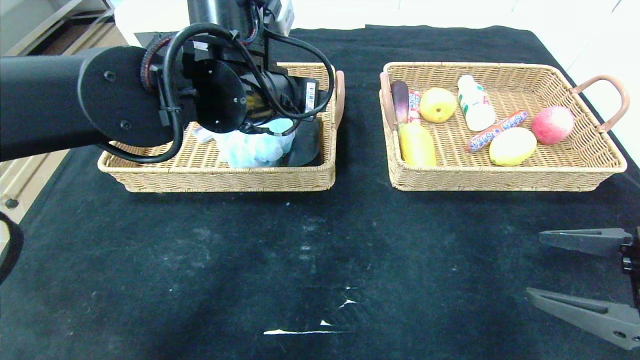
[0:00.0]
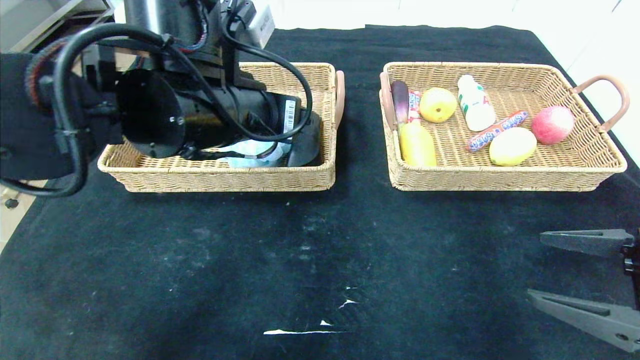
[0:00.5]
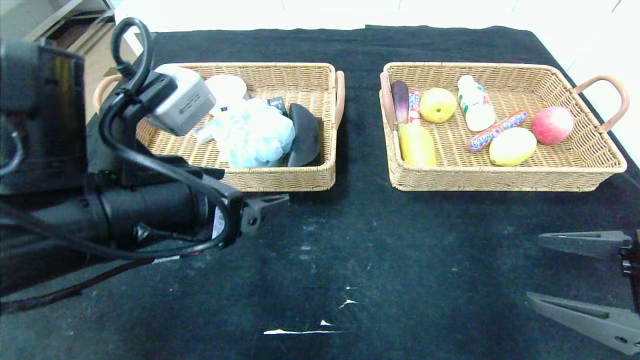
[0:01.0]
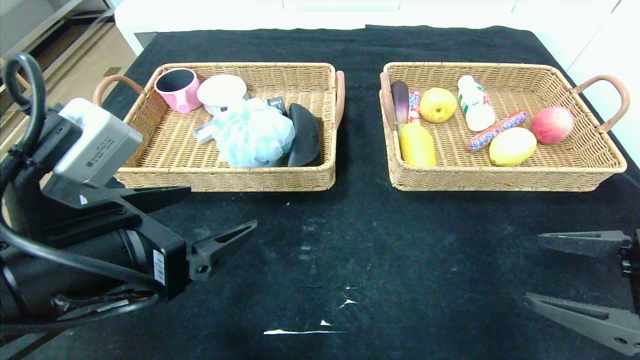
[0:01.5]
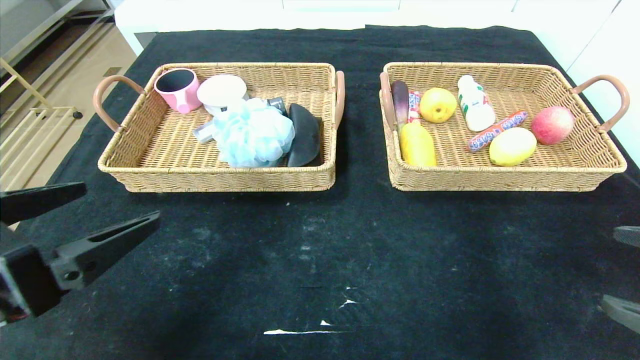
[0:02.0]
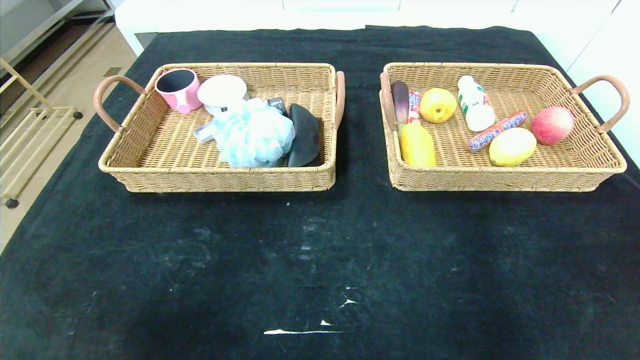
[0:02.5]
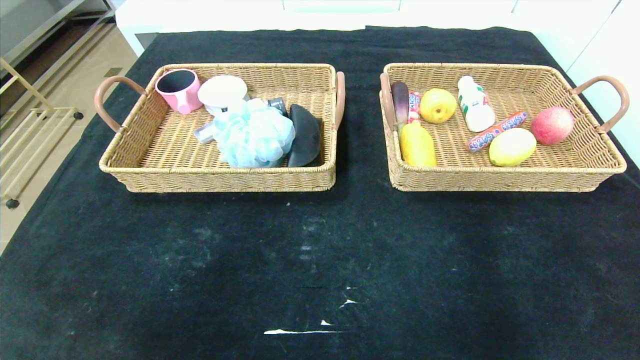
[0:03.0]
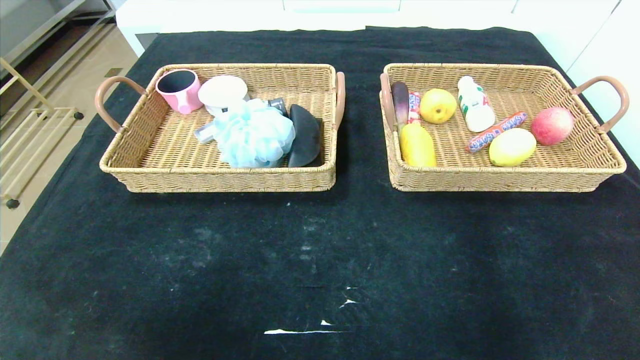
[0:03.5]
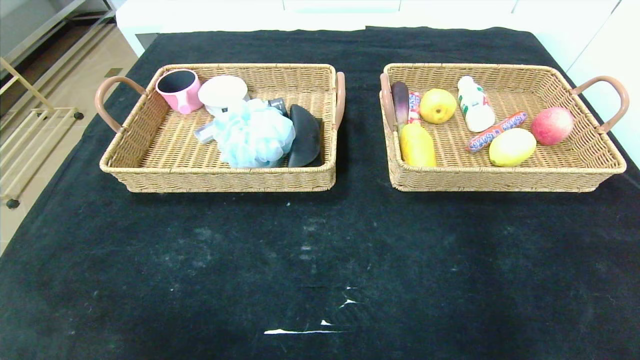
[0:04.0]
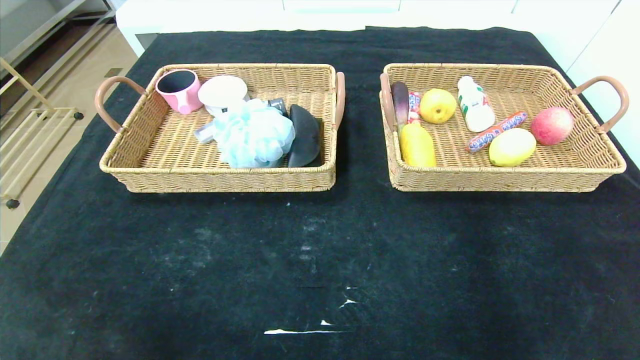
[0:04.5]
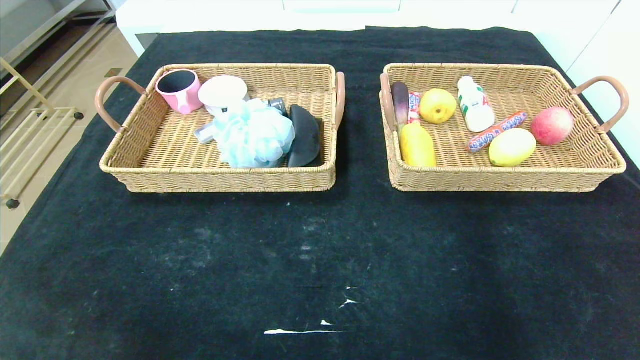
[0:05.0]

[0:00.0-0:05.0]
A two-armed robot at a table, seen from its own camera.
0:00.0 to 0:02.5: The left gripper is displaced backward and to the left by about 35 cm, while the right gripper heads backward, covering about 15 cm.
0:02.5 to 0:05.0: Both grippers travel together downward, about 20 cm.

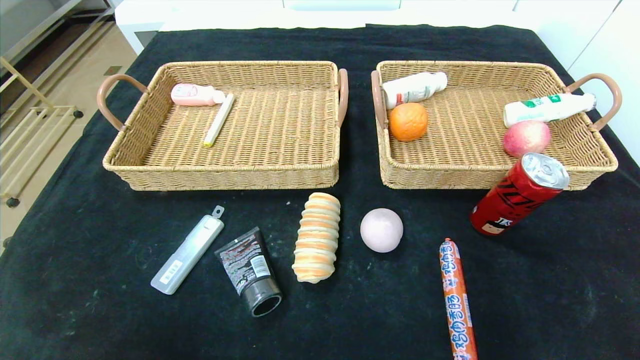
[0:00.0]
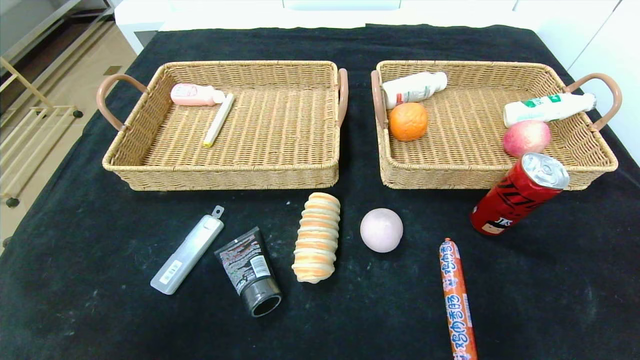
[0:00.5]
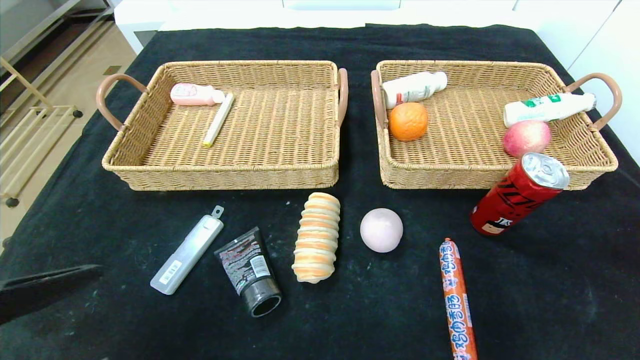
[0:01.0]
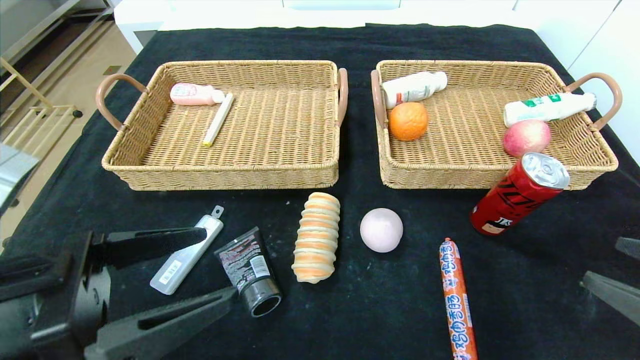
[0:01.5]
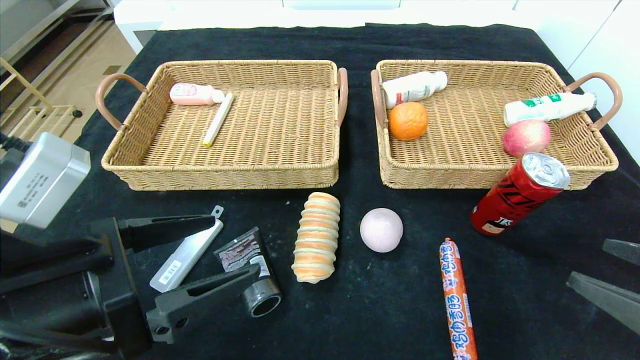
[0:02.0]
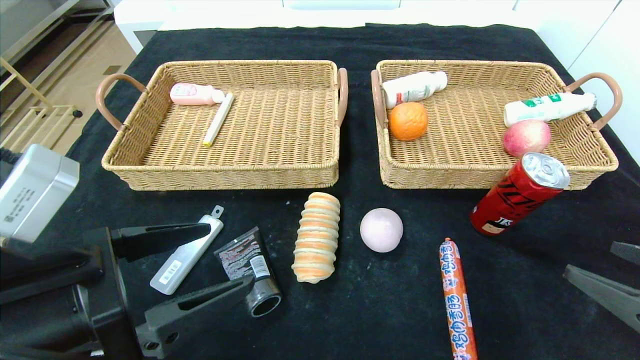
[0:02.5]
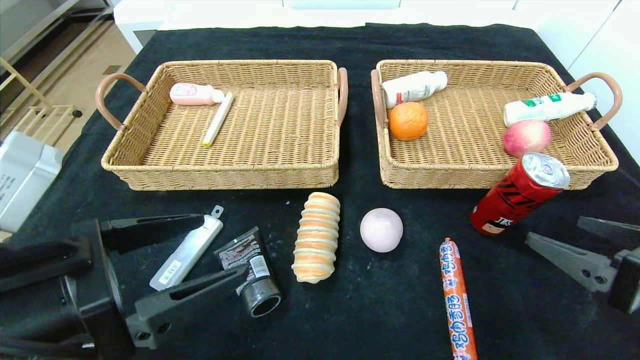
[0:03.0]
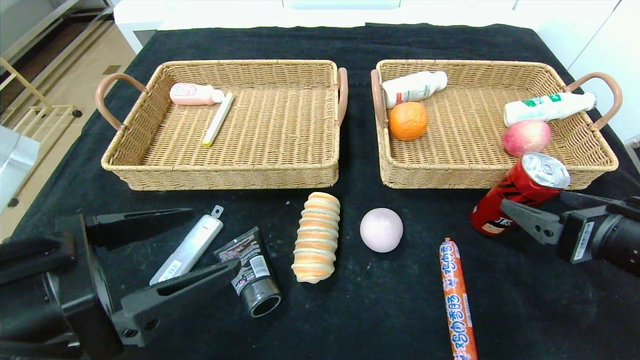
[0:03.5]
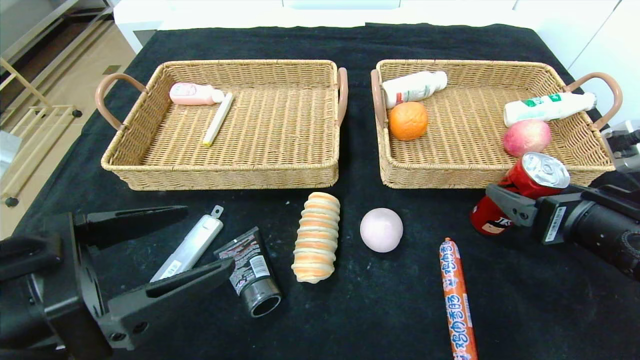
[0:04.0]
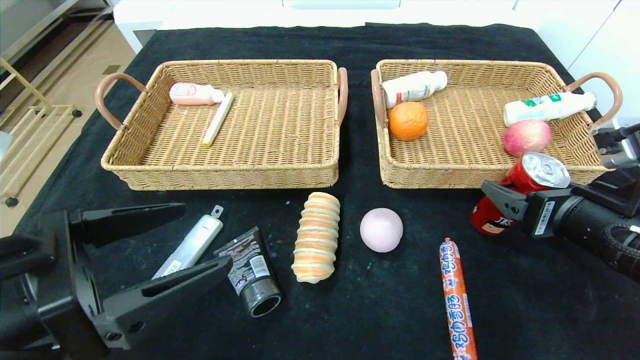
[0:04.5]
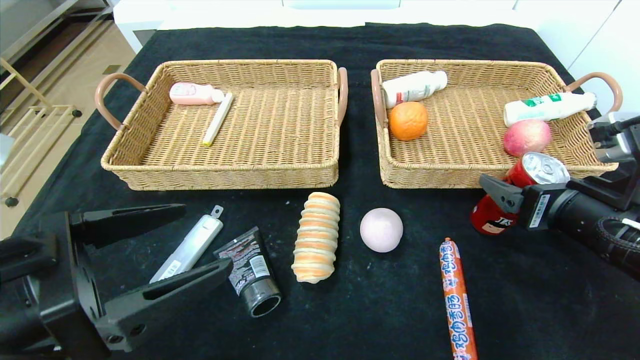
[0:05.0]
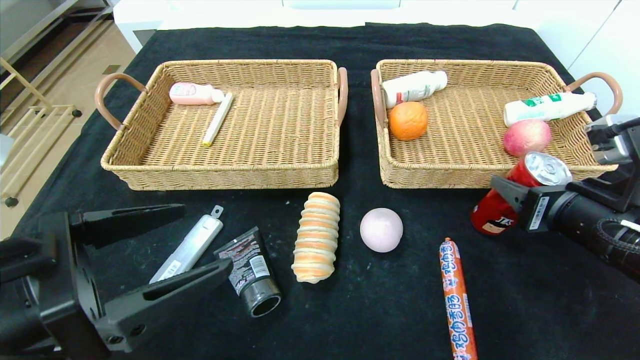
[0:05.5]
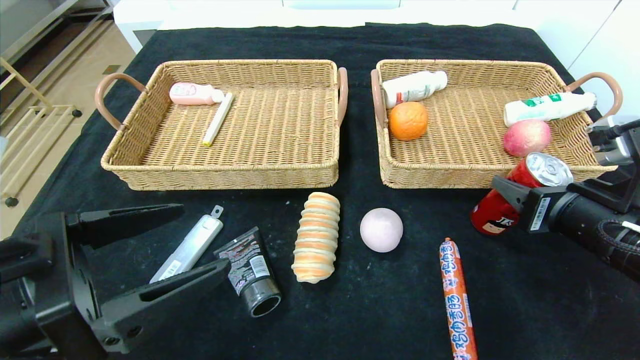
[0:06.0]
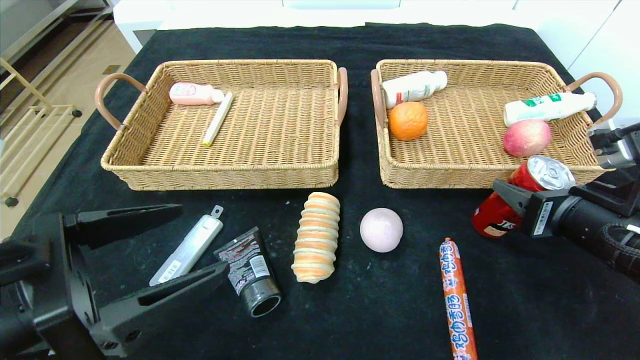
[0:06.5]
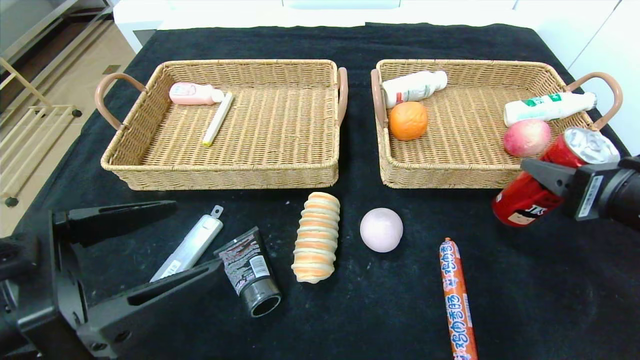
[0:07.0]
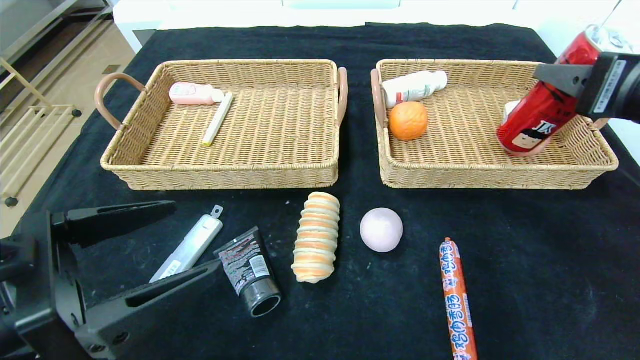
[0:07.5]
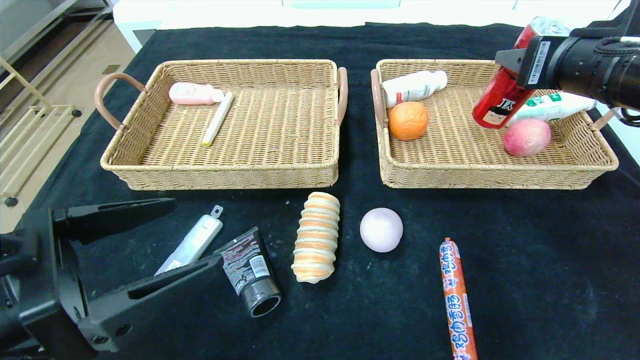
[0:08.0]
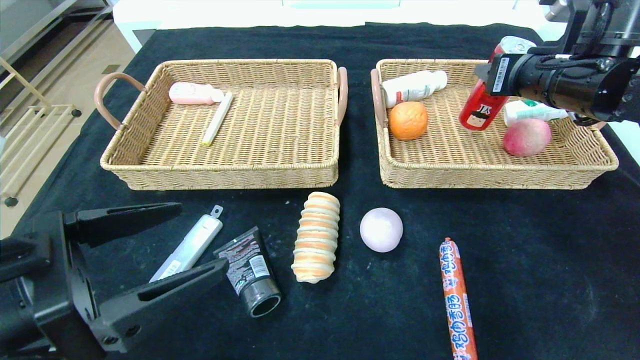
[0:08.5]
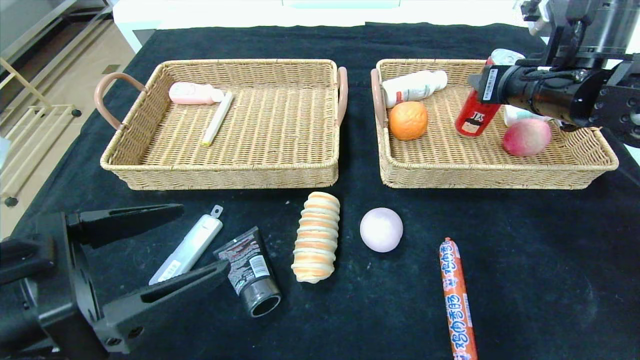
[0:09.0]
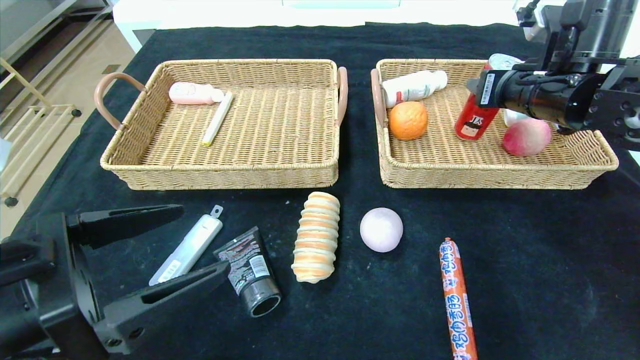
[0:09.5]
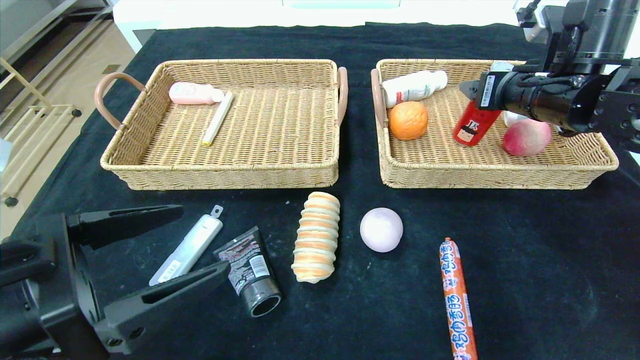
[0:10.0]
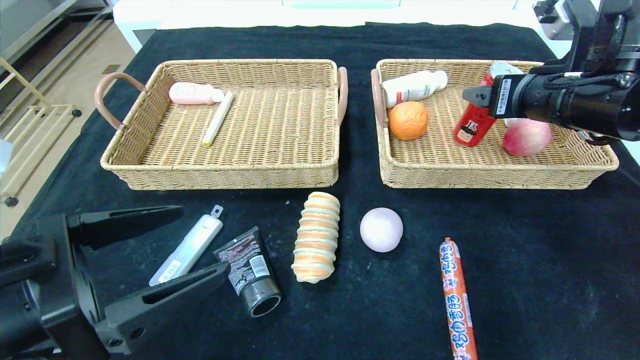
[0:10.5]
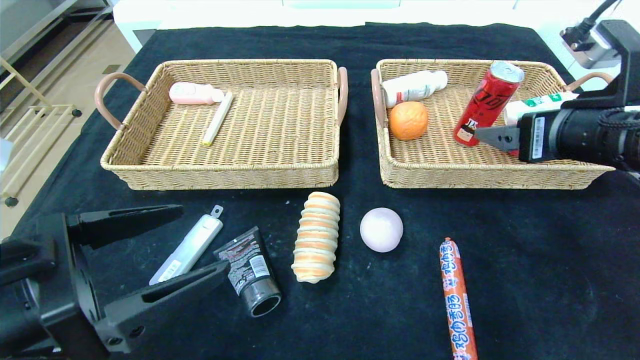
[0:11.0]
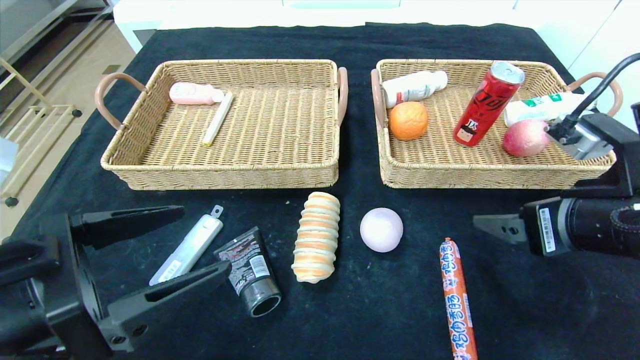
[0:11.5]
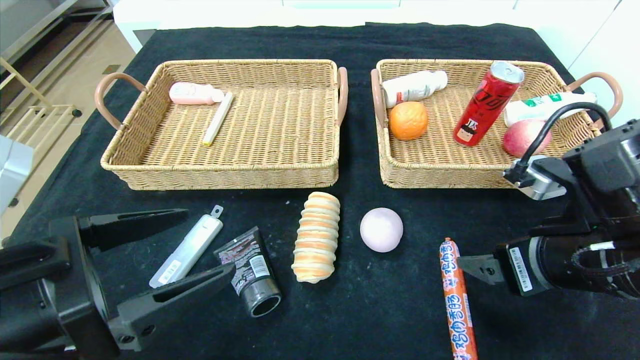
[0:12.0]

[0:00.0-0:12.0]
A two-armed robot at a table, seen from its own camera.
Step, 0:00.0 to 0:10.0: Grasp the canned cola and put it in the right basket.
0:00.0 to 0:02.0: The left gripper is displaced forward, upward and to the right by roughly 25 cm. Meanwhile the right gripper moves forward and upward, approximately 15 cm.
0:02.0 to 0:04.0: The right gripper shifts roughly 10 cm forward.
0:04.0 to 0:06.0: The right gripper closes.
0:06.0 to 0:08.0: The right gripper is displaced upward and forward by roughly 15 cm.
0:08.0 to 0:10.0: The right gripper moves forward, approximately 5 cm.
0:10.0 to 0:12.0: The right gripper heads backward and downward, covering some 20 cm.

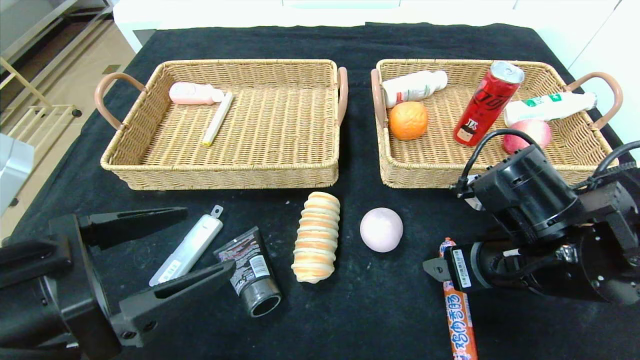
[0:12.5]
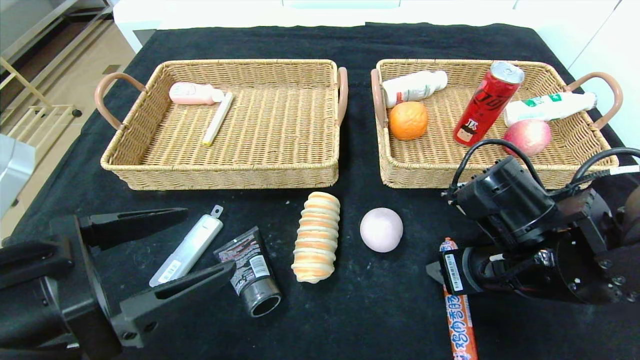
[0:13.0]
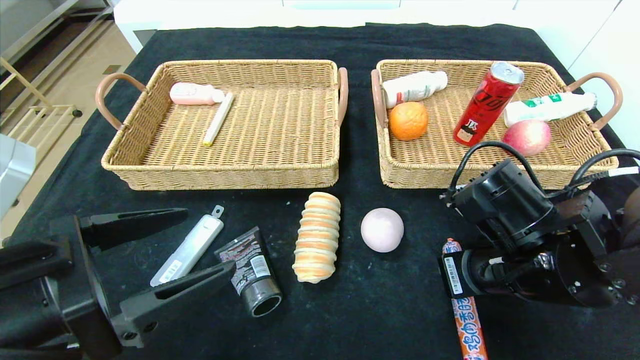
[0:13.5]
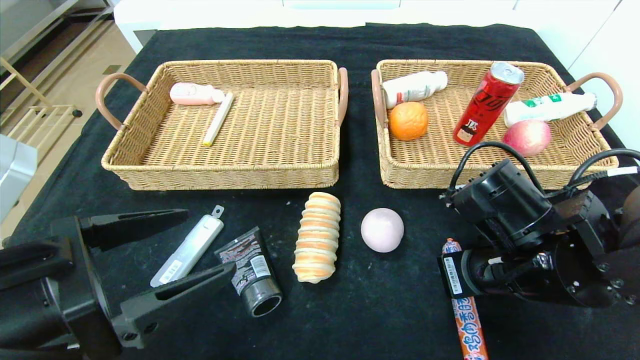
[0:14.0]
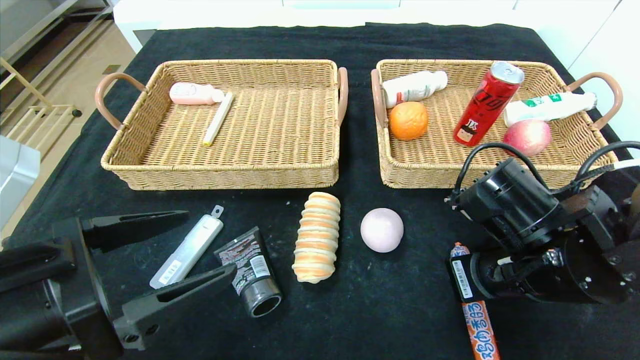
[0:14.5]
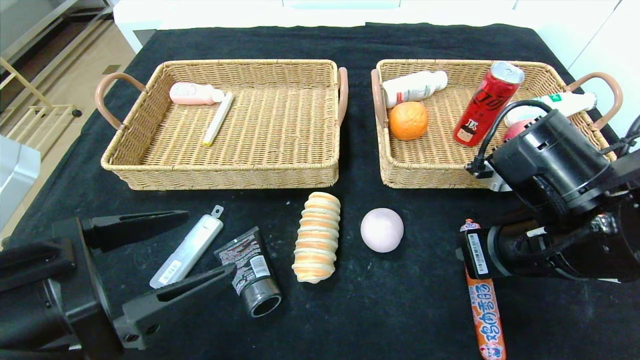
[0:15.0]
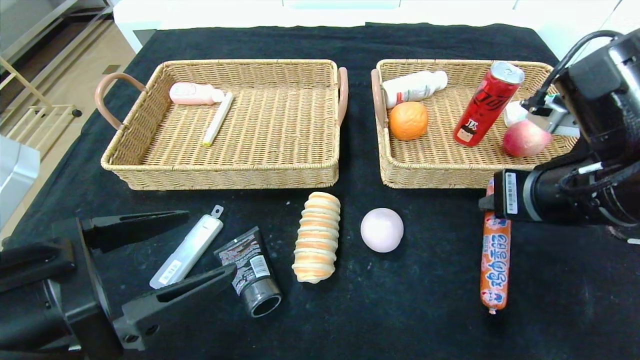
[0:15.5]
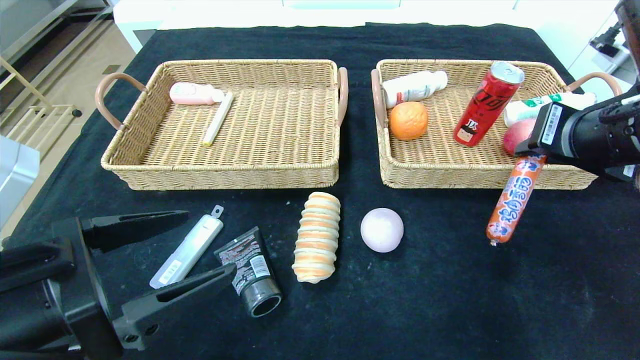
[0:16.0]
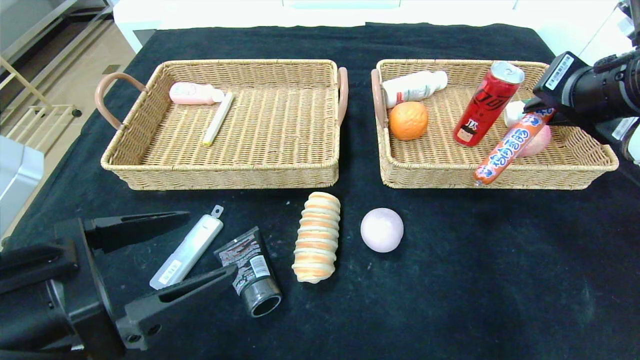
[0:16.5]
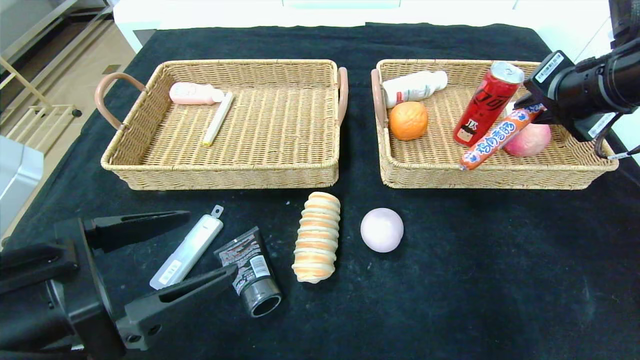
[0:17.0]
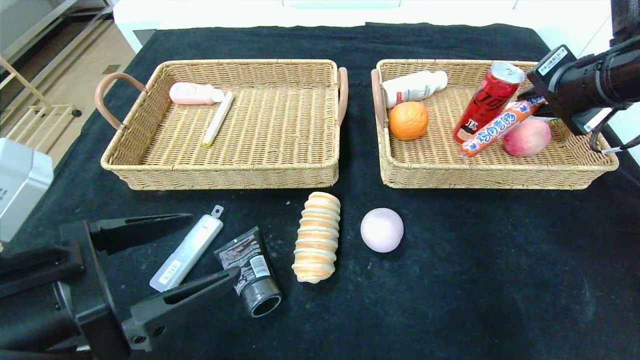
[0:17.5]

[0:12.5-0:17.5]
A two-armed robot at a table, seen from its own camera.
0:12.5 to 0:15.0: The right gripper closes its fingers.
0:15.0 to 0:17.5: The right gripper shifts about 20 cm upward, forward and to the right.
